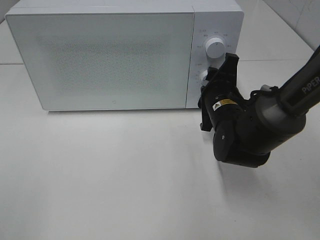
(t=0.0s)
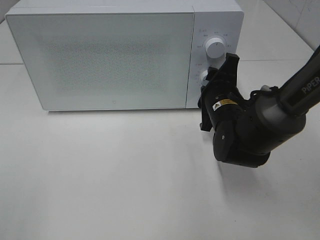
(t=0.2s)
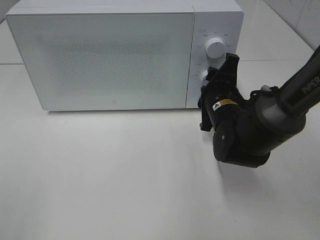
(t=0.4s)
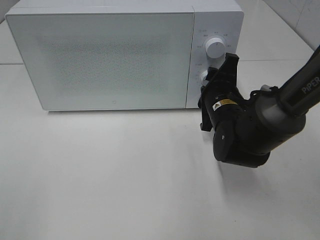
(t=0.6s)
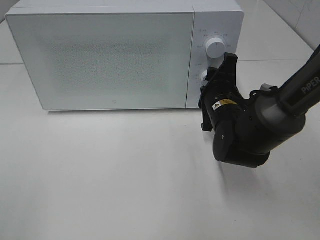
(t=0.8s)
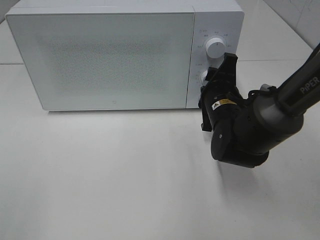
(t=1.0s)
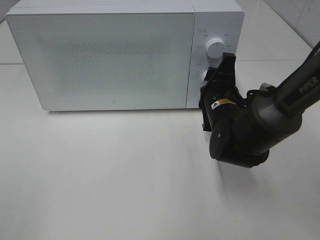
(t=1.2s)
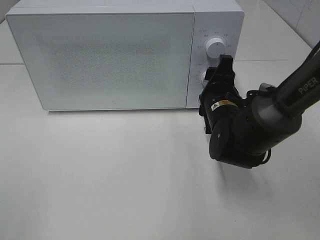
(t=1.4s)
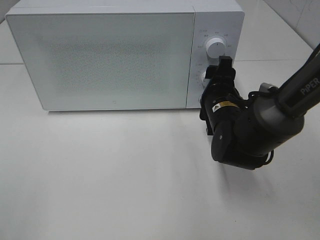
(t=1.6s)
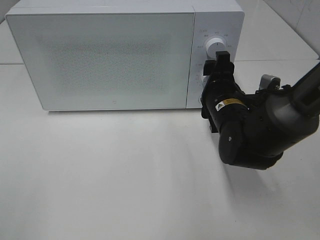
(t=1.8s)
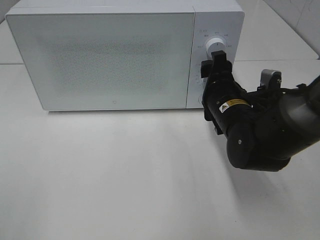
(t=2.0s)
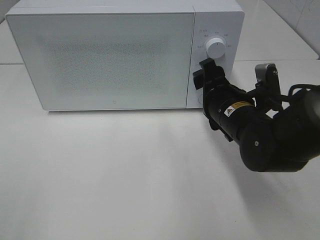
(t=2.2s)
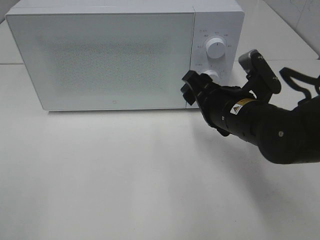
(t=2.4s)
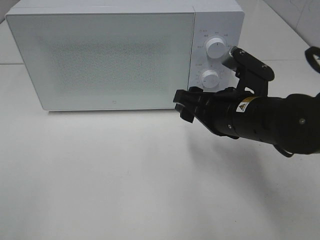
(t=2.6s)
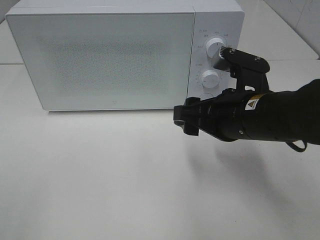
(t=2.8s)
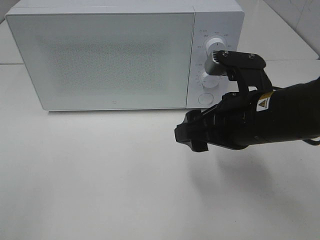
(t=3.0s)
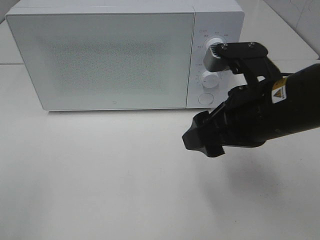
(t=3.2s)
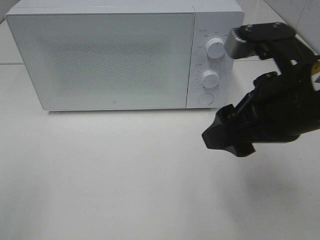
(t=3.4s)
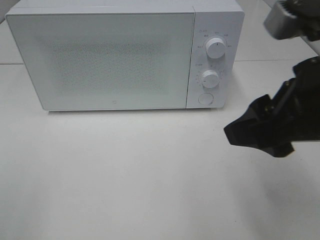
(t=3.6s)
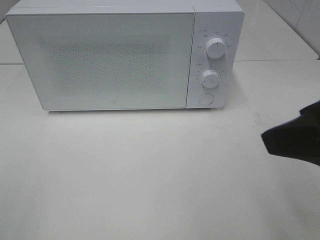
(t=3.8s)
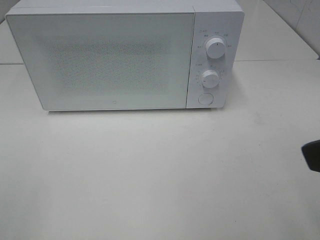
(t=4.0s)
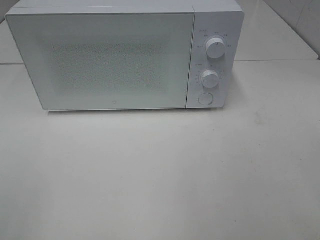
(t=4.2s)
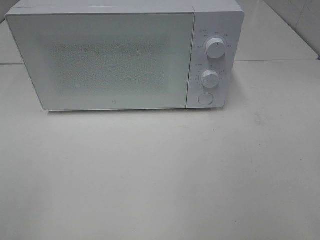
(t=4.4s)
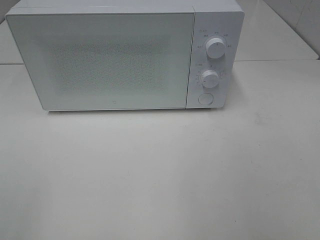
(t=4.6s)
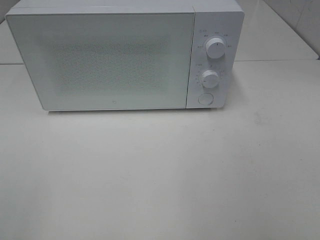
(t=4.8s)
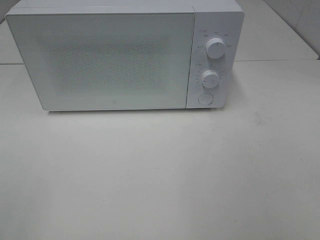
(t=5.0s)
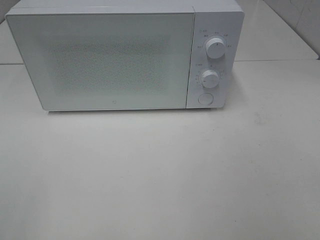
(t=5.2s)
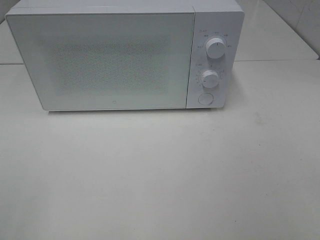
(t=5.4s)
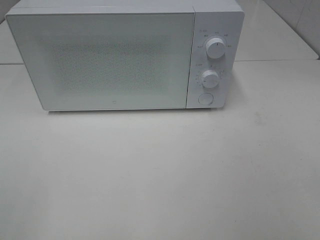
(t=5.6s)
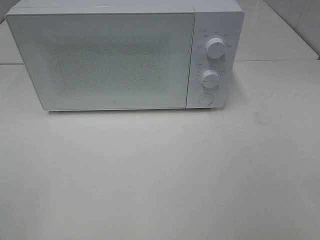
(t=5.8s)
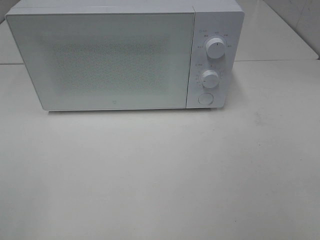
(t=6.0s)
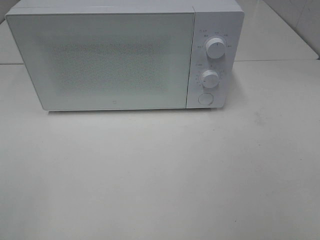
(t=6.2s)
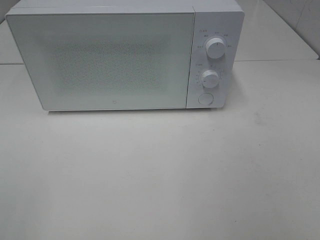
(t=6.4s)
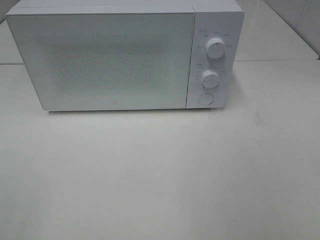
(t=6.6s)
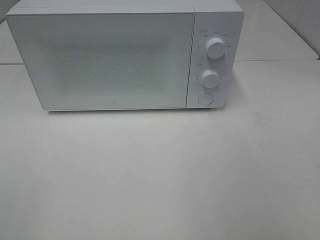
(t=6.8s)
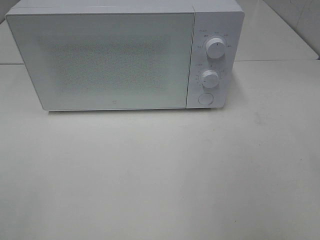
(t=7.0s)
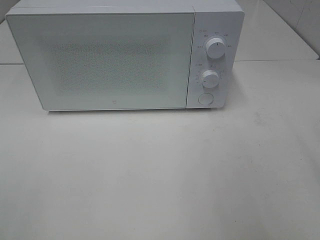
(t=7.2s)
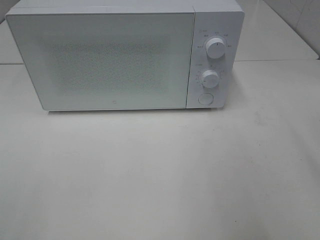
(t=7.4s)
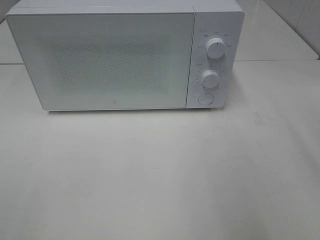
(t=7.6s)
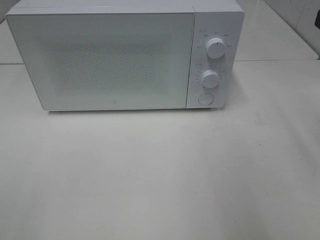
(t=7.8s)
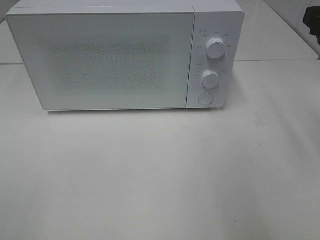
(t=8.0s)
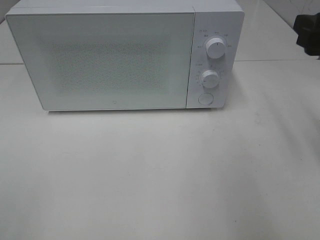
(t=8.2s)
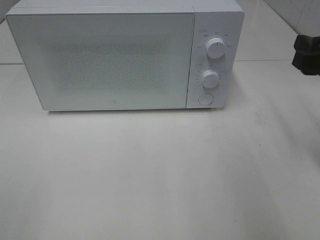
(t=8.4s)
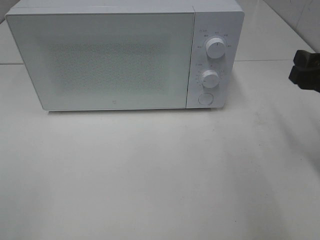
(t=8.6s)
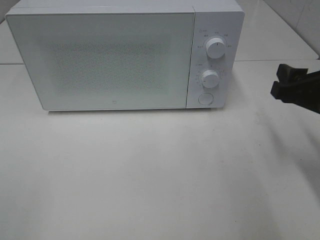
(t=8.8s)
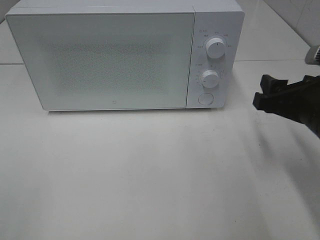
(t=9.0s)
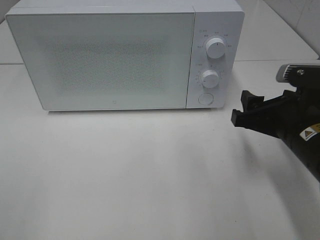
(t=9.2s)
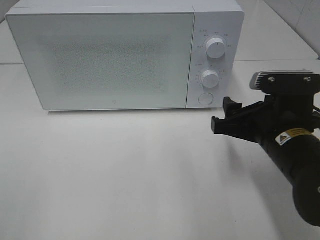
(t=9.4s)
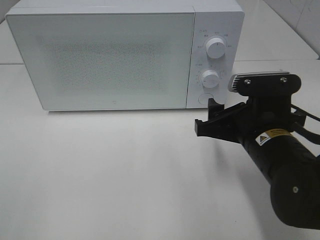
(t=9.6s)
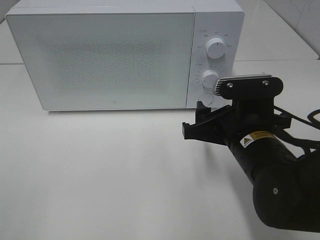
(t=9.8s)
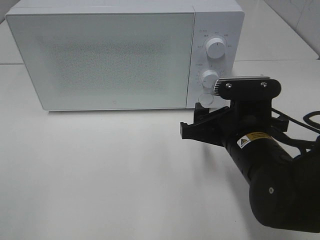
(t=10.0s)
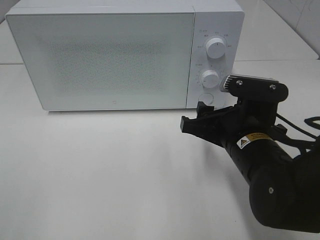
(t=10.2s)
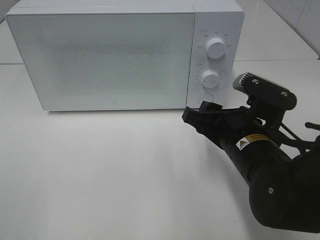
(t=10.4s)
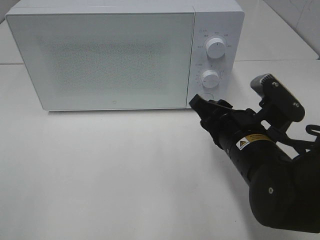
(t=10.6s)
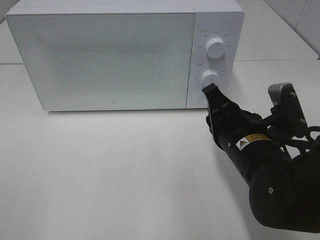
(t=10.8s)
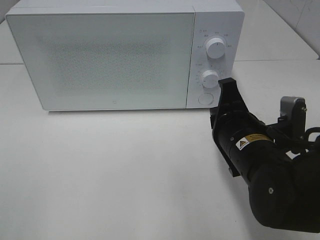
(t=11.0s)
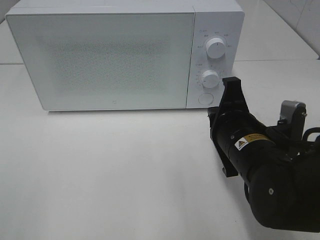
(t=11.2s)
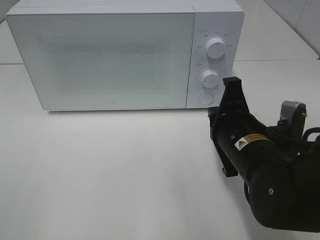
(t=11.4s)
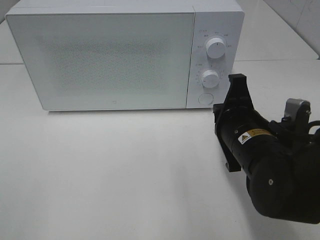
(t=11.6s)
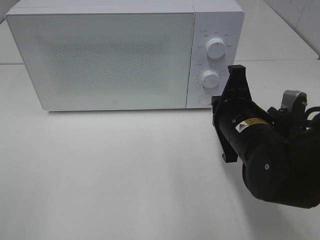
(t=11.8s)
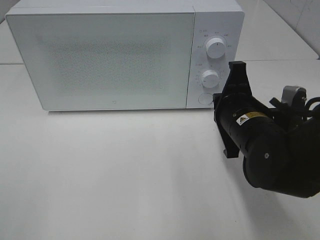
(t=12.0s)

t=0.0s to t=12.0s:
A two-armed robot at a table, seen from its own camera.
Task of the whole recording: Heat the burger.
t=0.0s to t=1.6s: The grippers move only a little.
t=1.6s to t=3.0s: The right gripper moves backward and upward, roughly 15 cm.
t=3.0s to t=4.4s: The right gripper goes approximately 25 cm backward, upward and to the right.
t=7.6s to t=9.0s: The right gripper moves downward, roughly 15 cm.
t=9.0s to t=10.4s: The right gripper travels to the left by about 10 cm.
t=10.4s to t=12.0s: The right gripper closes.

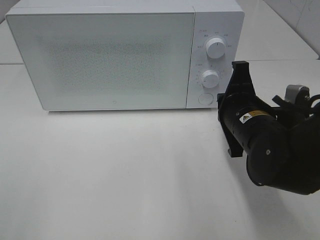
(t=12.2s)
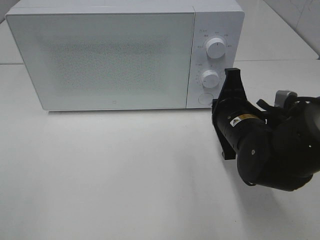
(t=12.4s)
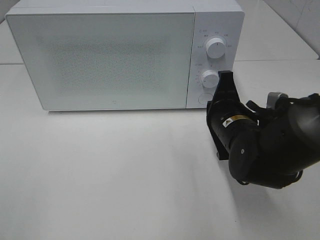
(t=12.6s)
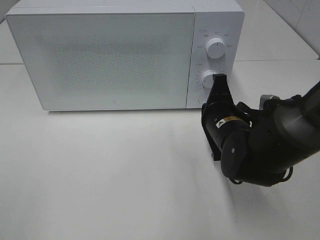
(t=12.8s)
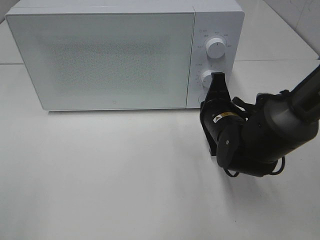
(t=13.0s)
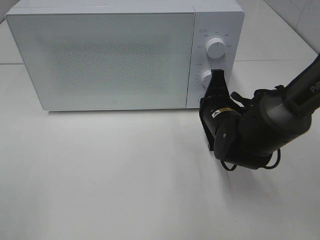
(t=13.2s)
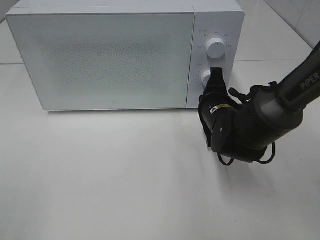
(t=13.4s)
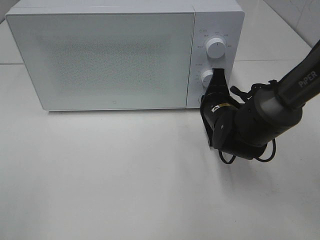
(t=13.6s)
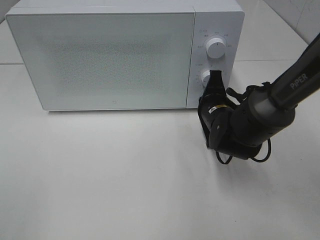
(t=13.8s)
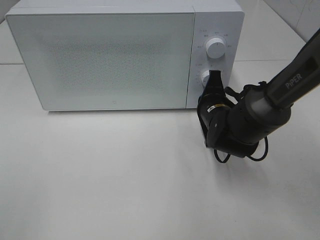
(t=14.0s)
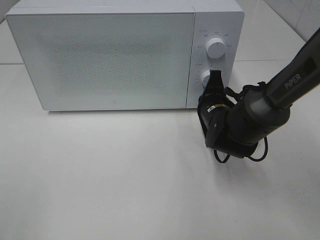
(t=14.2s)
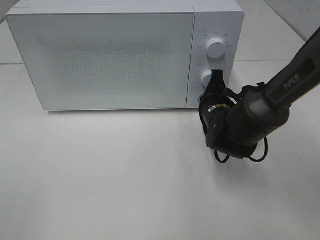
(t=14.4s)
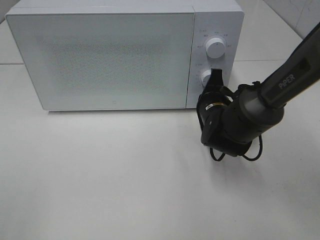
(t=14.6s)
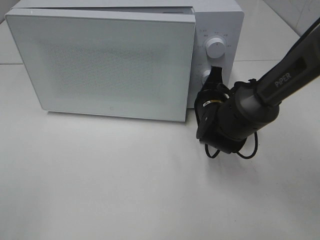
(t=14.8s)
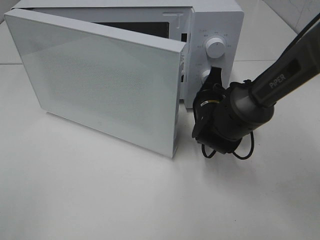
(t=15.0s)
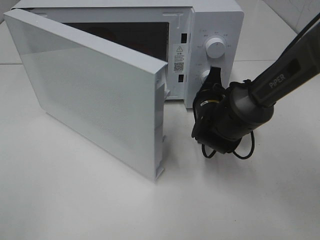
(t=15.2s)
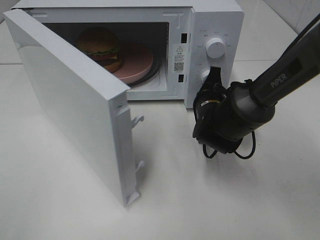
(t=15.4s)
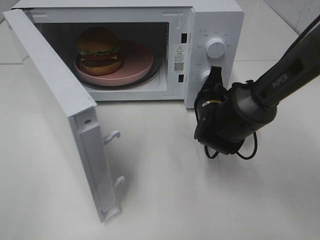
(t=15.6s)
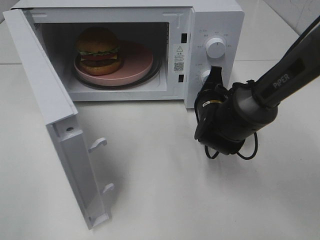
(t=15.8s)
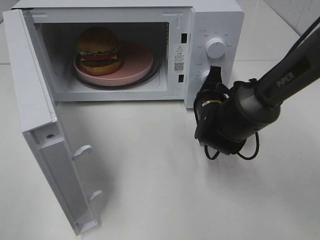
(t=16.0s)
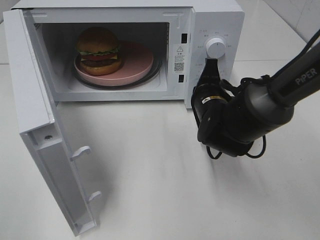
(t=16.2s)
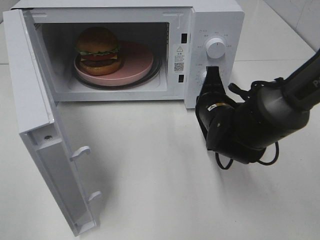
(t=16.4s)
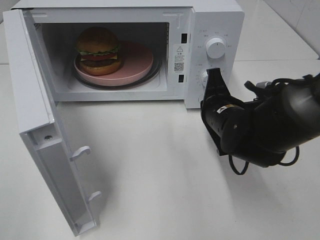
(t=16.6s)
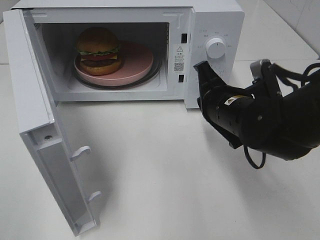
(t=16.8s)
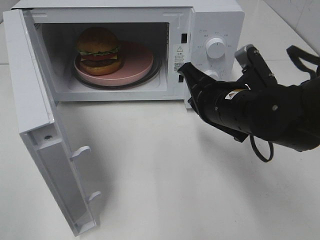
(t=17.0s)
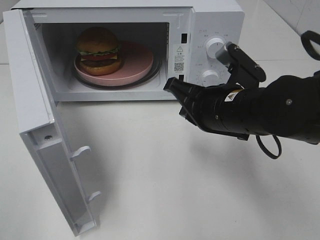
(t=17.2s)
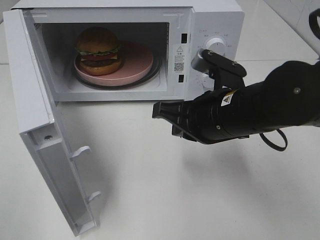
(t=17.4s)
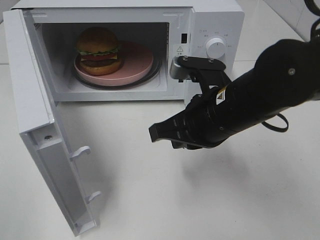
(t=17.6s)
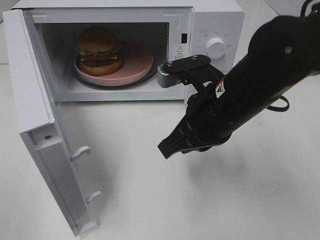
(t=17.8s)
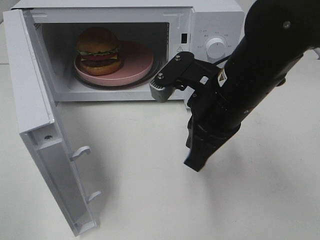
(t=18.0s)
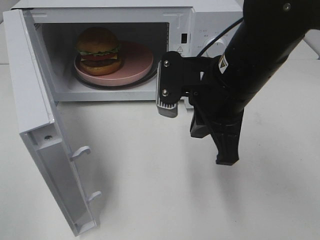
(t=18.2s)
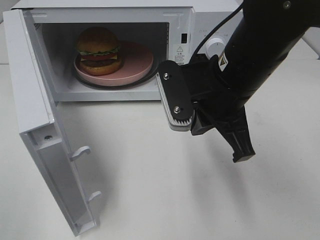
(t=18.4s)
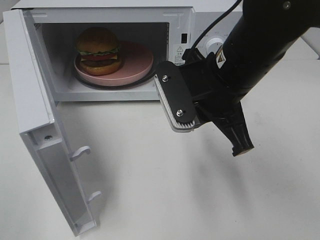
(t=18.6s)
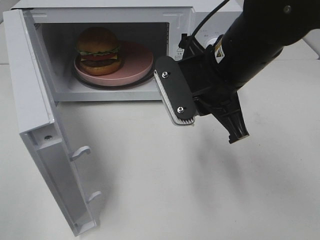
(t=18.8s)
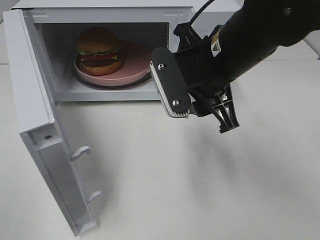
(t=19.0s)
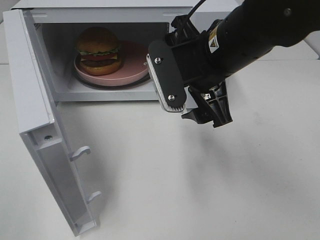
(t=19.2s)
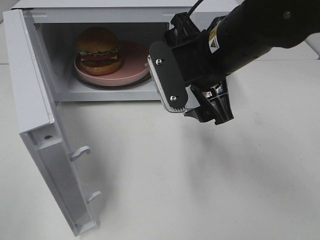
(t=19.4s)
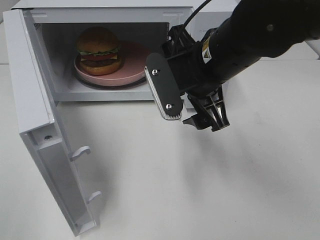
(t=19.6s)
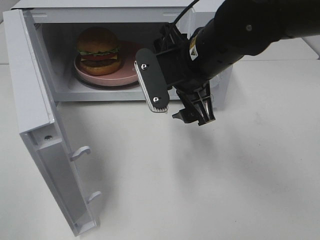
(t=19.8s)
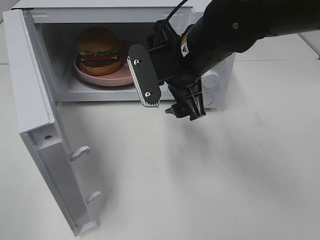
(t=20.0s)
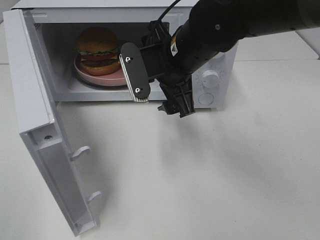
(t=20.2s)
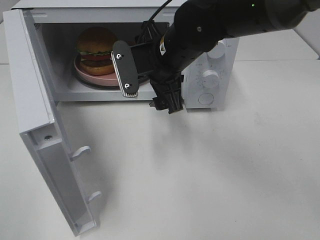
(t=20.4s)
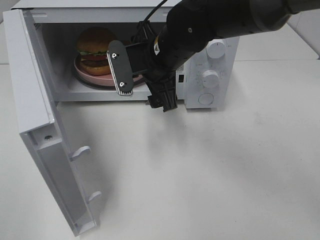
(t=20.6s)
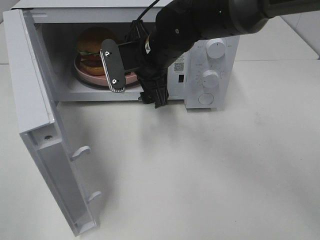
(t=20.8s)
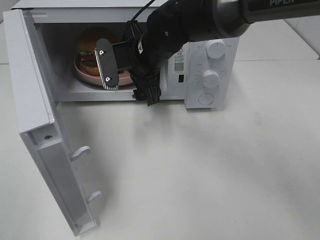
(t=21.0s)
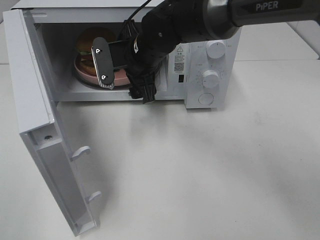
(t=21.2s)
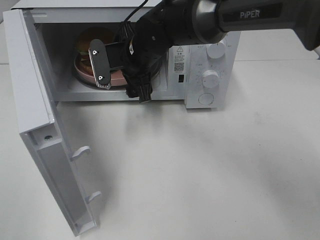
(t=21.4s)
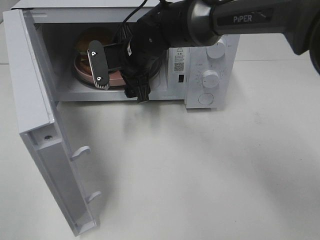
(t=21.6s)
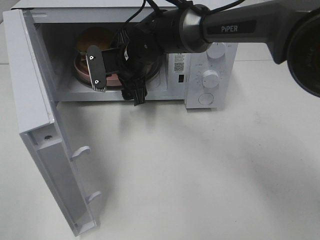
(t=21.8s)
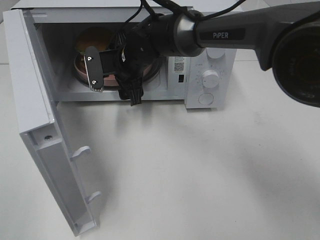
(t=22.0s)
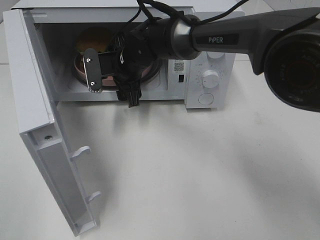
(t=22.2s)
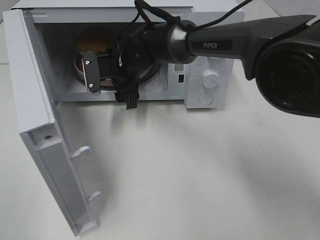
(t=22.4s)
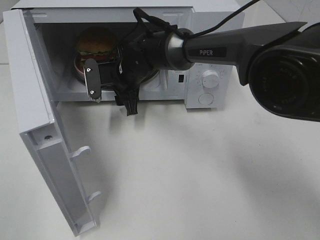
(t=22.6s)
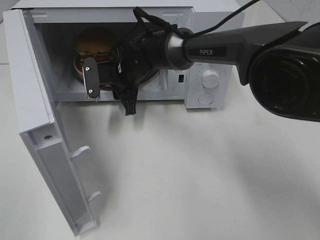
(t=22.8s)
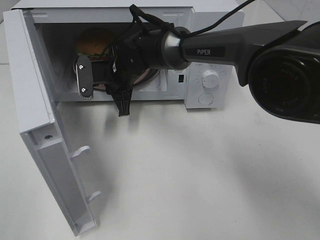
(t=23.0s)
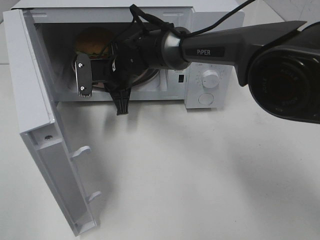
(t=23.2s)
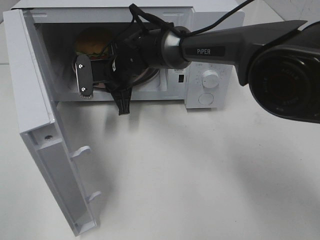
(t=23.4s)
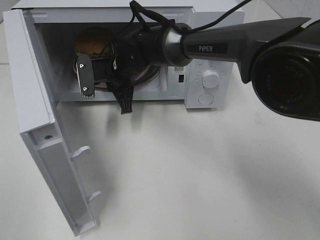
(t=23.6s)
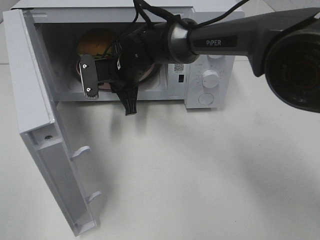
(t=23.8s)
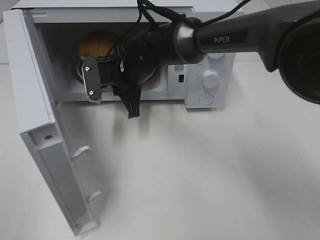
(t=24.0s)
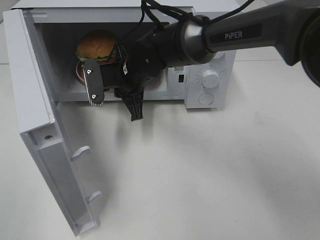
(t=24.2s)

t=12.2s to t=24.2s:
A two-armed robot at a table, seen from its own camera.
Task of the whole recording: Heat the burger.
Step, t=12.2s to t=16.2s: Right hand: press the switch.
Step, t=16.4s to t=23.2s: Right hand: grab the plate with the hamburger.
t=12.2s to t=13.8s: The right gripper moves forward and downward, approximately 10 cm.
t=15.2s to t=16.6s: The right gripper moves backward, about 5 cm.
t=16.6s to t=18.2s: The right gripper goes roughly 10 cm upward.
t=18.2s to t=19.8s: The right gripper shifts by some 5 cm, and opens its fingers.
t=19.8s to t=21.2s: The right gripper shifts some 10 cm forward and to the left.
t=21.2s to t=22.6s: The right gripper is displaced downward by approximately 5 cm.
t=22.6s to t=24.2s: The right gripper ends up roughly 5 cm from where it was, and closes.
